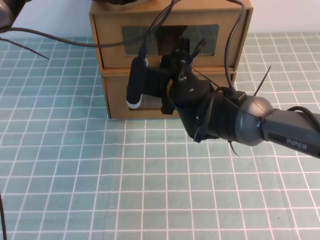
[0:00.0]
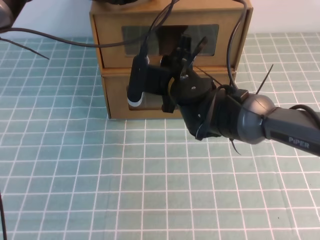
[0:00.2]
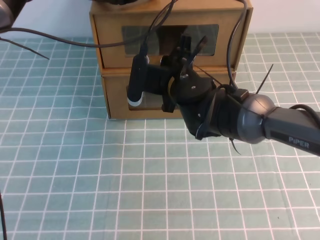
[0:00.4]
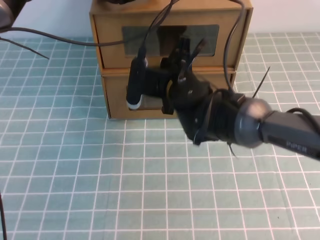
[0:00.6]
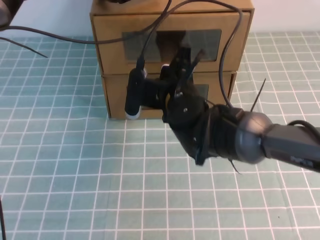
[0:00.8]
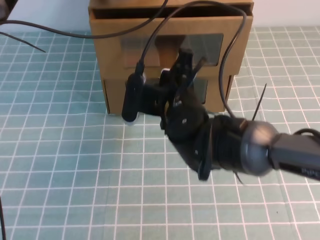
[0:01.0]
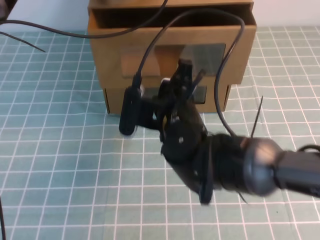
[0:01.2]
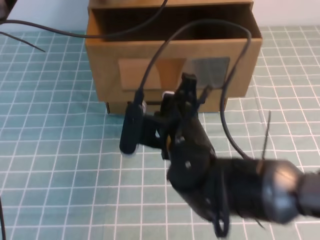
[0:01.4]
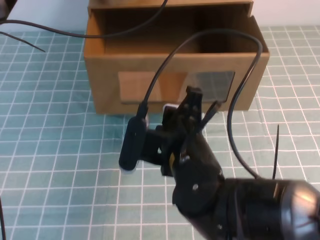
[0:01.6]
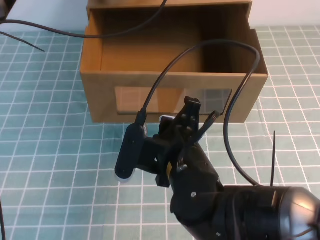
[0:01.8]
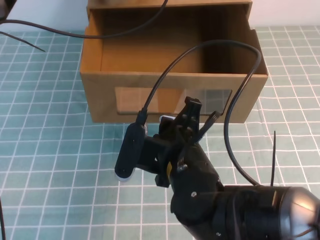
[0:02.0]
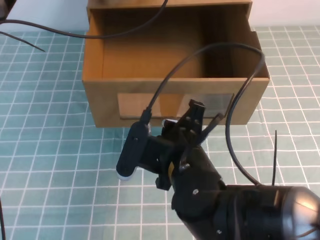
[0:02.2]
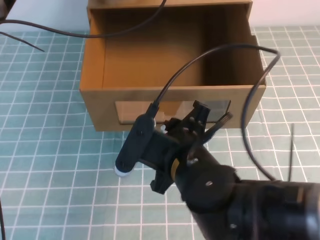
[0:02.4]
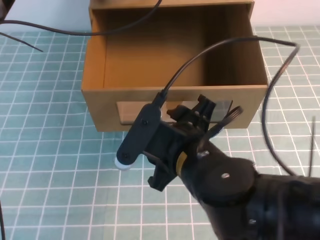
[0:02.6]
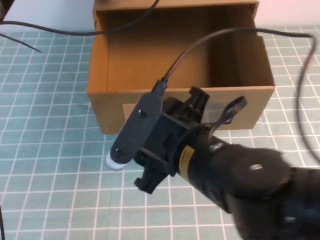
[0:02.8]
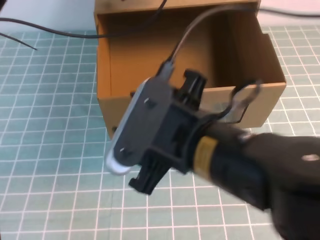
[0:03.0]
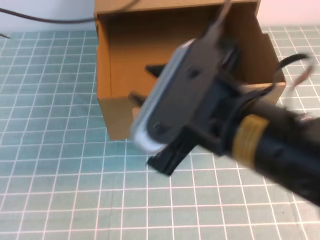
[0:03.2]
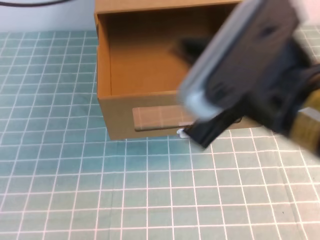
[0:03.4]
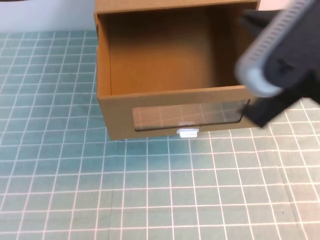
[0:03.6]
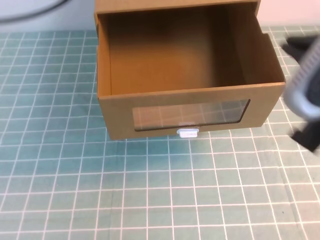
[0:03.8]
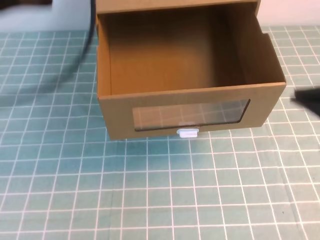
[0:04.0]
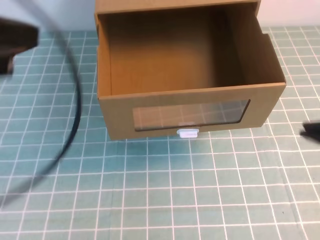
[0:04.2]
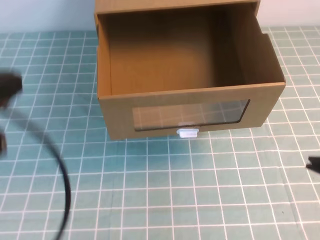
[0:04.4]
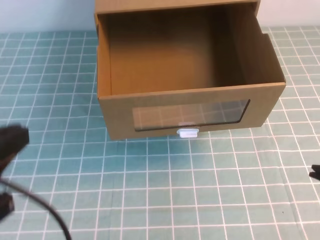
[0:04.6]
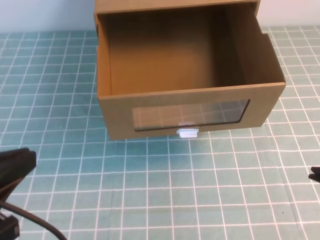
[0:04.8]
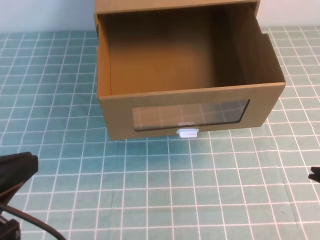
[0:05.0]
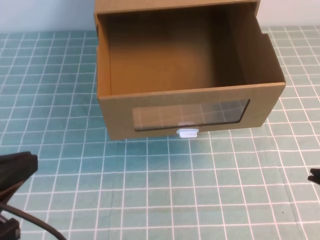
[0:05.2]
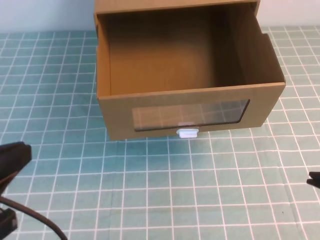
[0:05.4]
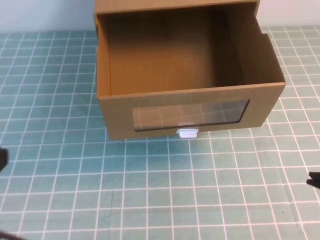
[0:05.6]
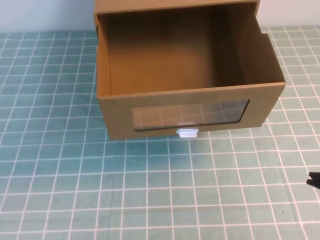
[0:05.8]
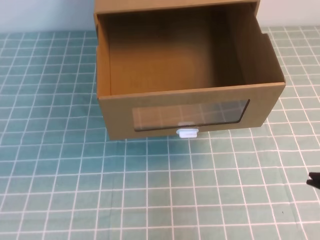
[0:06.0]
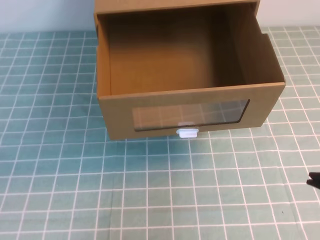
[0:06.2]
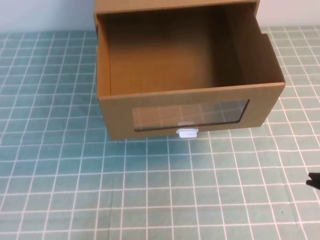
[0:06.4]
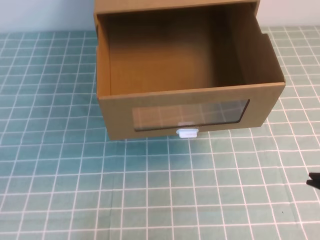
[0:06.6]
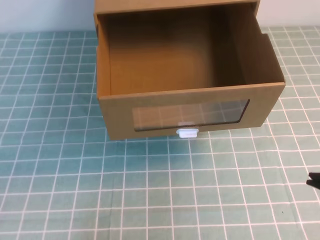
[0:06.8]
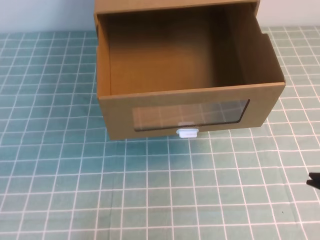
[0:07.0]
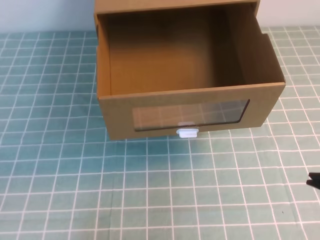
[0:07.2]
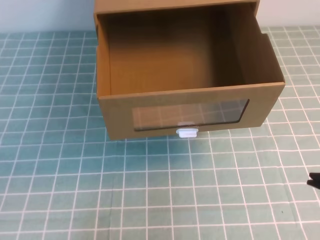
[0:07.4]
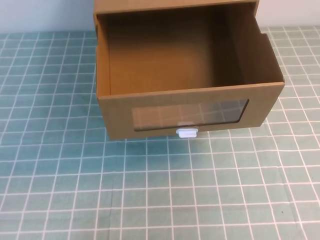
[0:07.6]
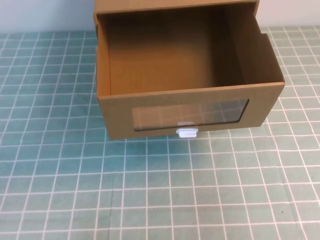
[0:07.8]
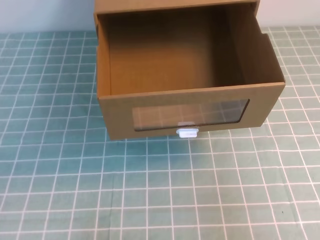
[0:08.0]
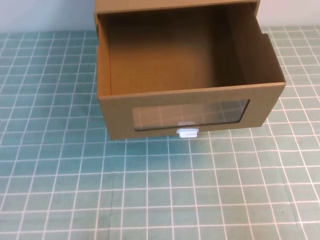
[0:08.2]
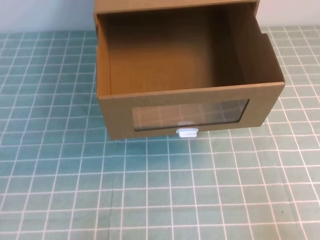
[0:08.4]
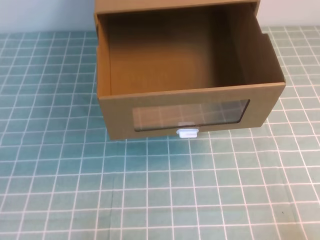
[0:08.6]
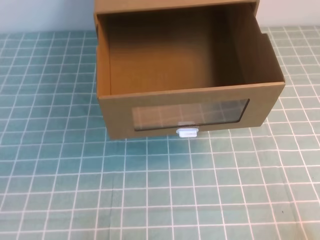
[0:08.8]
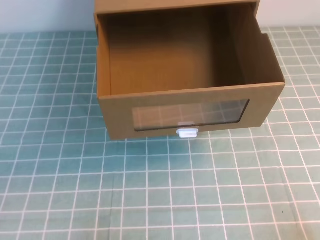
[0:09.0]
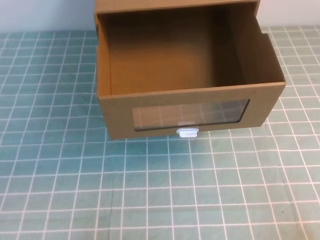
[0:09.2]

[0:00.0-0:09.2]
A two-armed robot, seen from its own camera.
Task of the whole recording: open the shoebox on the cyan tablecloth.
Step, 0.0 to 9.2 s: Open the shoe box.
0.0 to 1.6 s: The right gripper heads backward, covering roughly 15 cm, and closes its fingers.
1.6 to 3.0 s: The right gripper travels upward and backward by about 10 cm, and opens.
3.0 to 4.6 s: The right gripper moves to the right and backward, about 20 cm, and closes up, while the left gripper moves backward, some 35 cm.
4.6 to 6.2 s: The left gripper is displaced downward by some 15 cm.
7.6 to 9.2 s: The right gripper moves downward, some 20 cm.

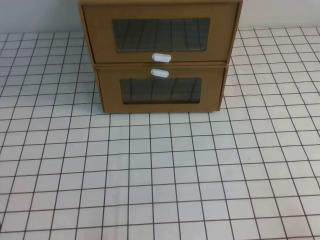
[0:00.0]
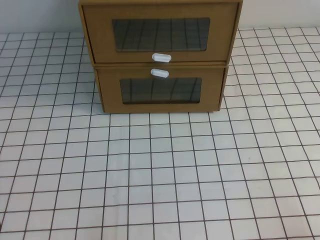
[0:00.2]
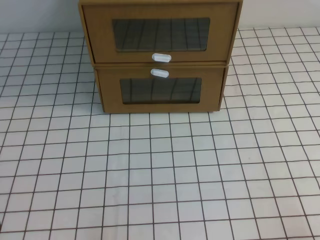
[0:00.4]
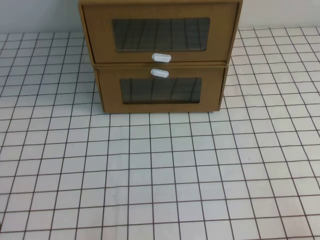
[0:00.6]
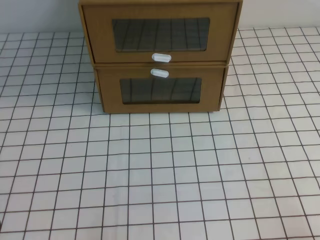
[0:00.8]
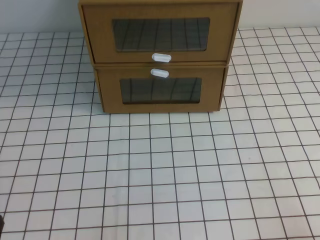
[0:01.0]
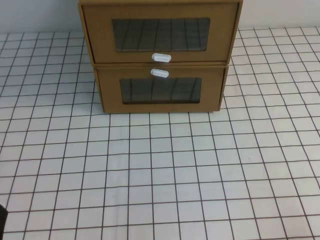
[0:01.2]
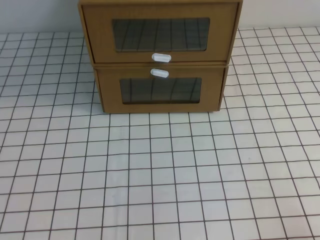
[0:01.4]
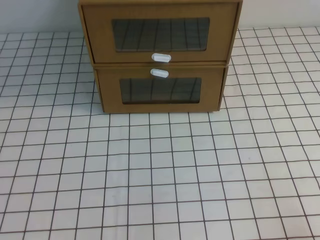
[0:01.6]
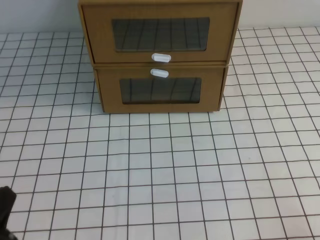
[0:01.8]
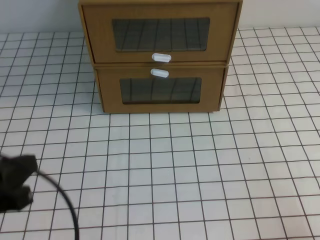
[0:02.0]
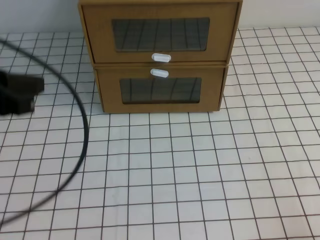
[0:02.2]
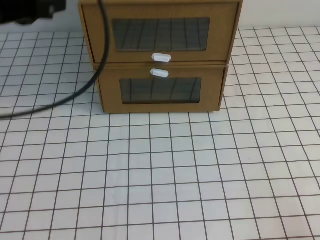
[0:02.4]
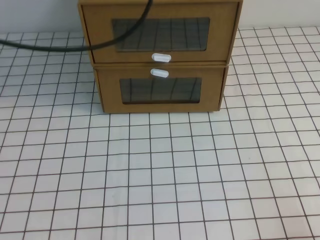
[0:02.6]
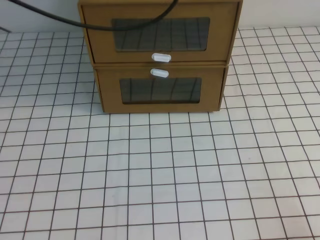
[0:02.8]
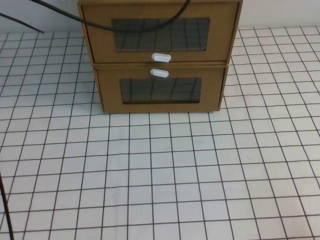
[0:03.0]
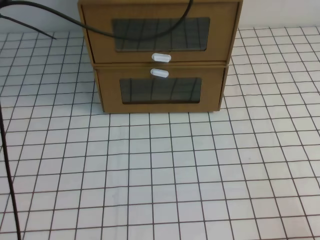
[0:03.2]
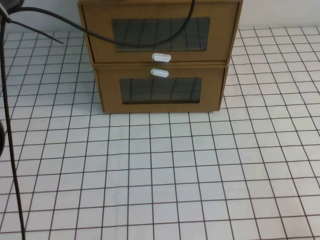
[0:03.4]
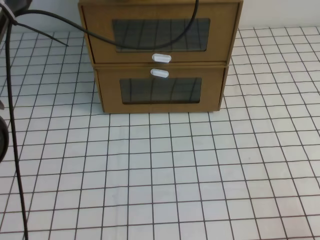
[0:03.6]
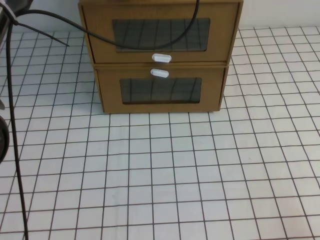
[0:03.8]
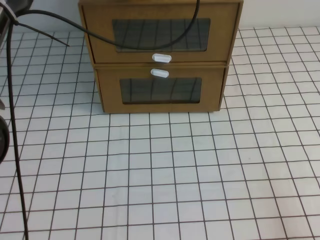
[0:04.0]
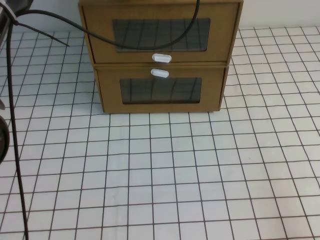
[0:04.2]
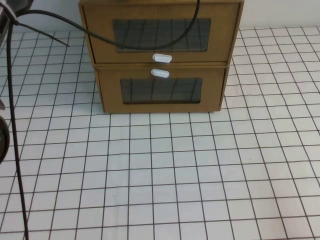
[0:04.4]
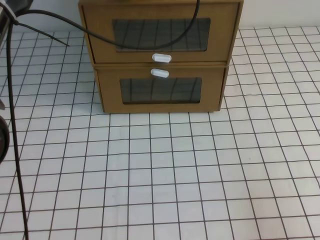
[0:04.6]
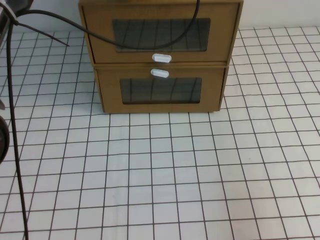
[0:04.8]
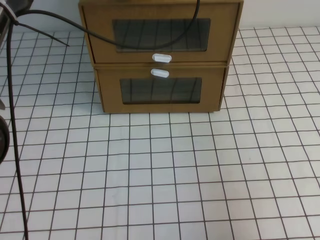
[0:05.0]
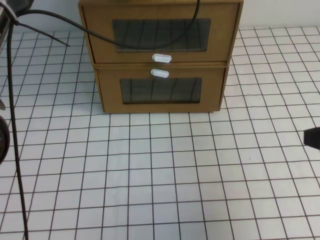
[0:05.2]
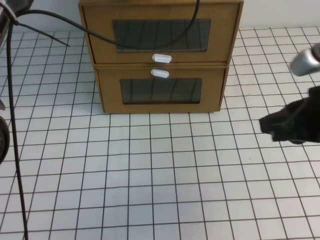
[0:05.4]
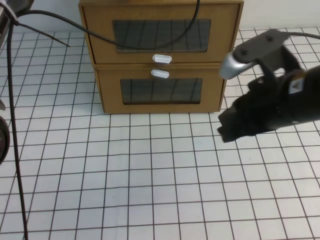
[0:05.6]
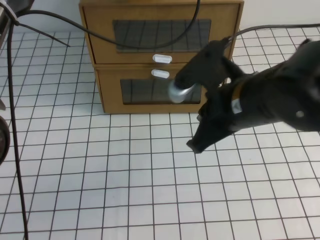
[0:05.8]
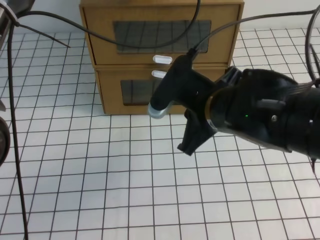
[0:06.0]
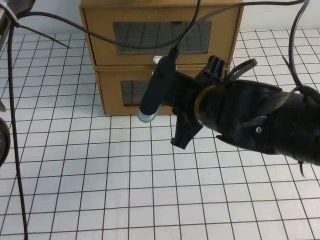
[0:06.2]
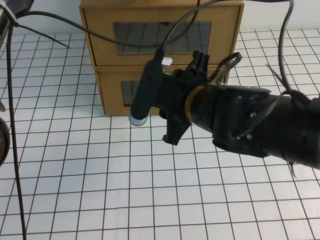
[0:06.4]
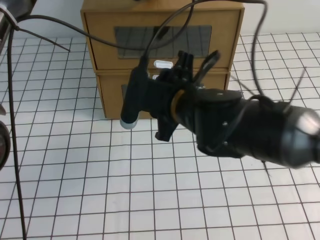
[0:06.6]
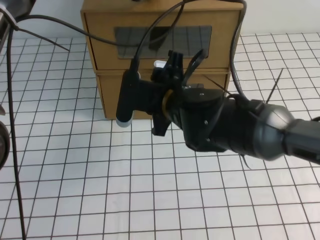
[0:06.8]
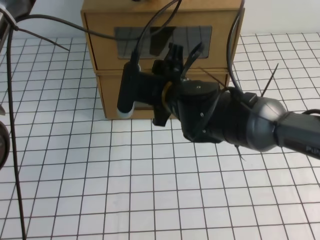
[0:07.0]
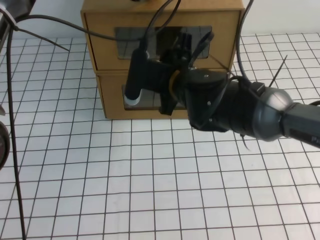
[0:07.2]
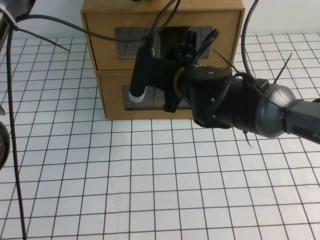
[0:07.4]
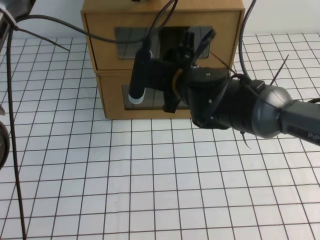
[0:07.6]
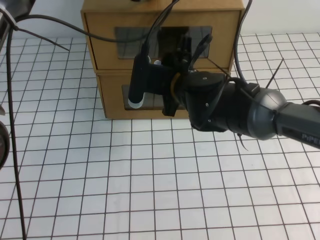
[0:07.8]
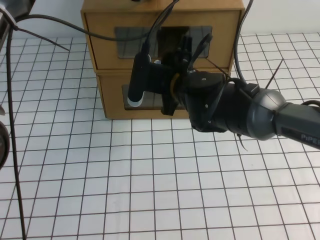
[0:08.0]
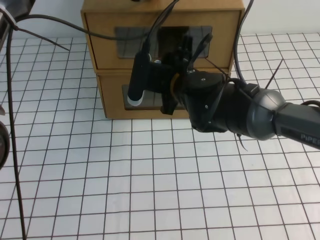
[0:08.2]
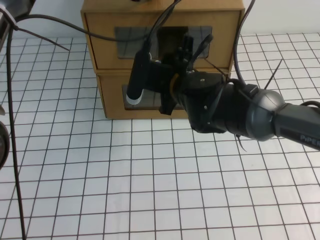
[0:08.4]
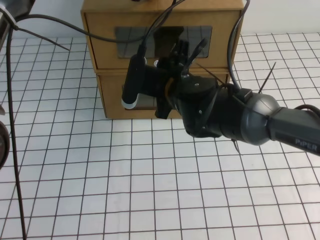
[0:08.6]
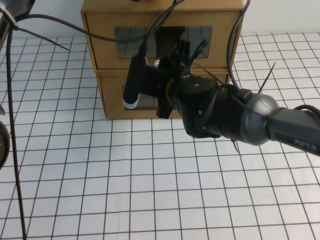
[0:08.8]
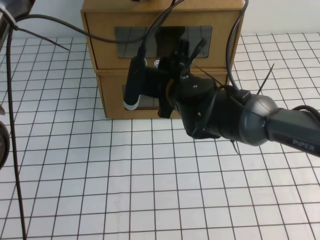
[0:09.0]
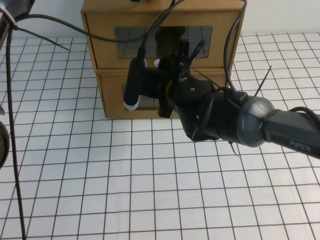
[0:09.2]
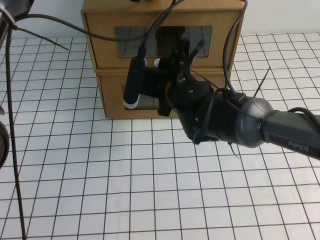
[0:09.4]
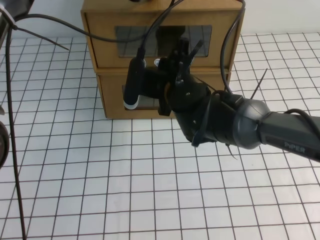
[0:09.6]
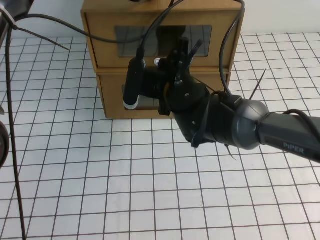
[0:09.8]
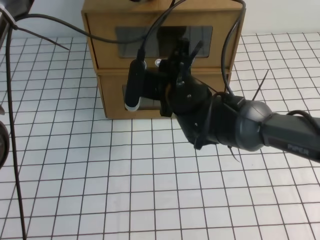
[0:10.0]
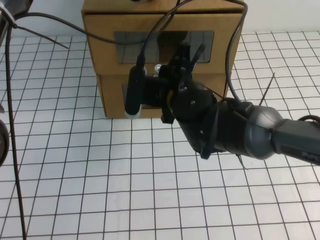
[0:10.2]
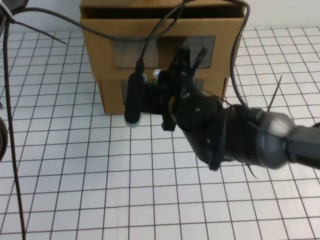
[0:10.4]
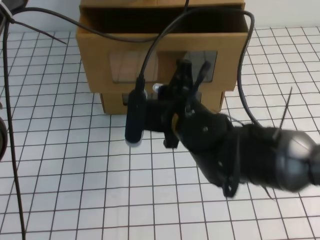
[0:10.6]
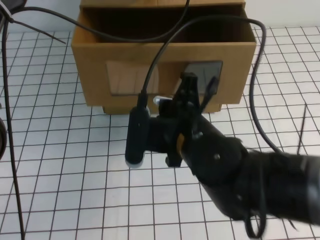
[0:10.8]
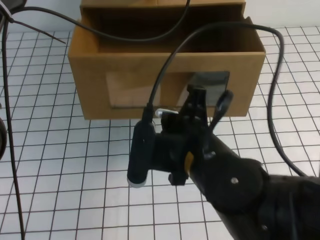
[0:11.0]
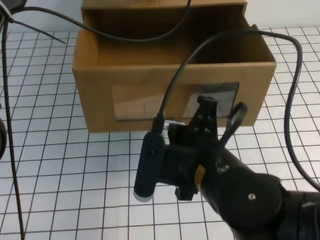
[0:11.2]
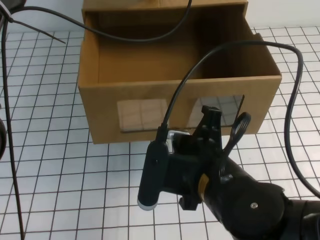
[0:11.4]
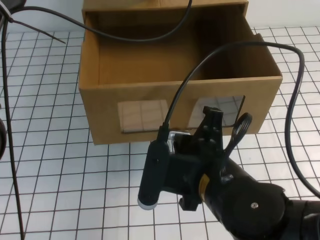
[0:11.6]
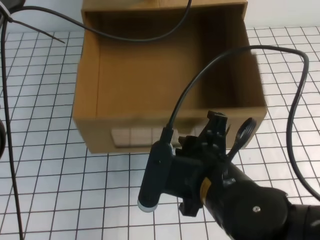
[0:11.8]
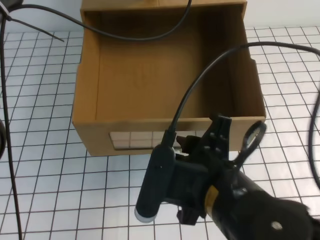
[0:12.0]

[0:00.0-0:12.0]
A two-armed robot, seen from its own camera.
Task of the whole recording: open the shoebox on the white tablecloth.
1.6 to 3.0 s: The left gripper goes some 50 cm forward, upward and to the right.
3.0 to 4.4 s: The left gripper changes place by approximately 5 cm.
4.4 to 6.0 s: The right gripper goes about 30 cm to the left, forward and upward.
6.0 to 7.6 s: The right gripper is displaced forward and to the left by approximately 10 cm, and opens its fingers.
7.6 to 9.0 s: The grippers make only small movements.
9.0 to 10.4 s: The right gripper closes up.
10.4 to 12.0 s: The right gripper shifts some 15 cm backward, and opens its fingers.

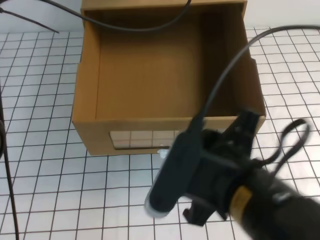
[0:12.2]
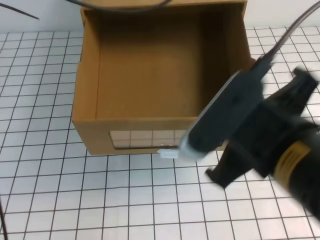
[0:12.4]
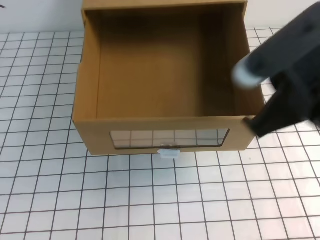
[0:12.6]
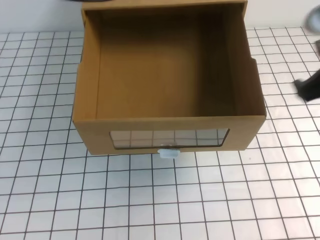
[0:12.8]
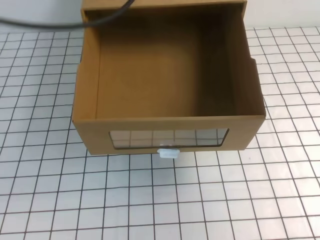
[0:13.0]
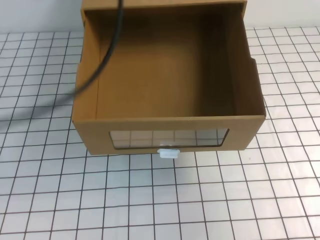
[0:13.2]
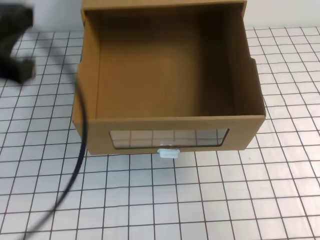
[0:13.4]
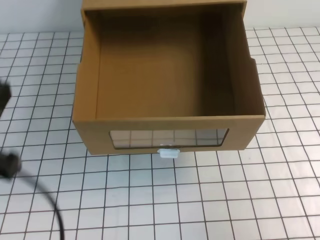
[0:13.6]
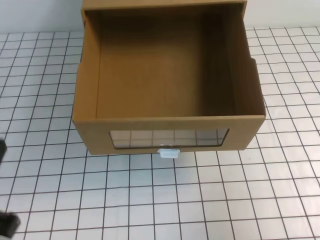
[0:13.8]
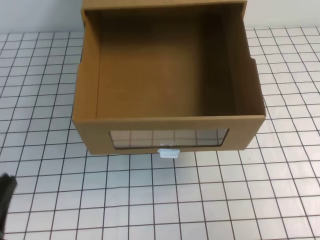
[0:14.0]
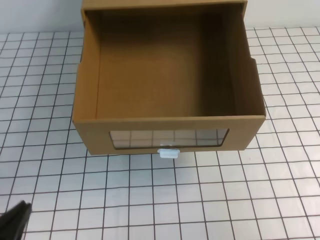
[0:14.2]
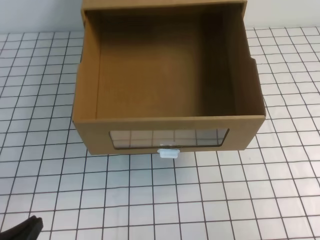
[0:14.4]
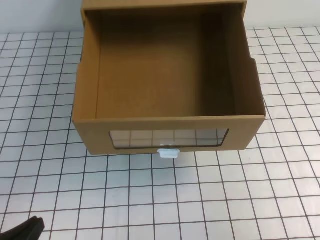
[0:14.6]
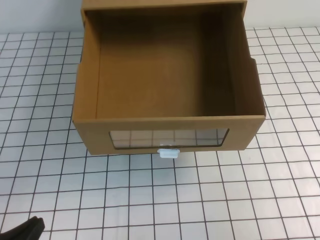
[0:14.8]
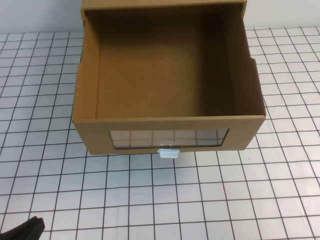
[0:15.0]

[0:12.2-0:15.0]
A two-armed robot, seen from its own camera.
Task of the whole recording: open the shoebox on the white tablecloth.
12.2 to 13.6 s: The left gripper goes approximately 30 cm backward and to the left. The right gripper travels to the right by approximately 20 cm, and closes.
13.6 to 15.0 s: The left gripper shifts roughly 20 cm downward.
